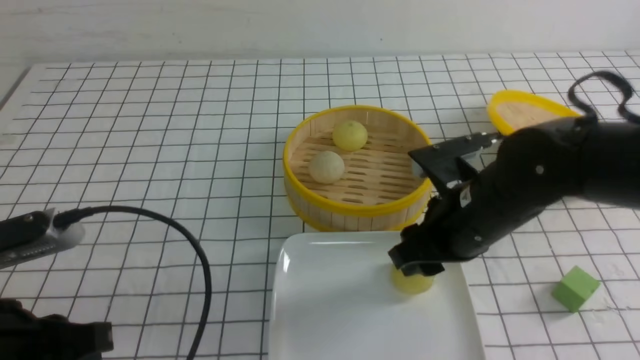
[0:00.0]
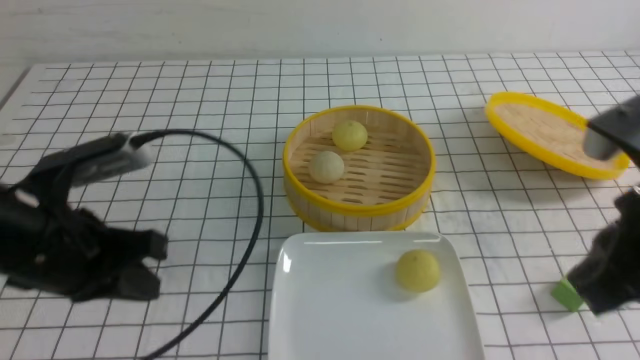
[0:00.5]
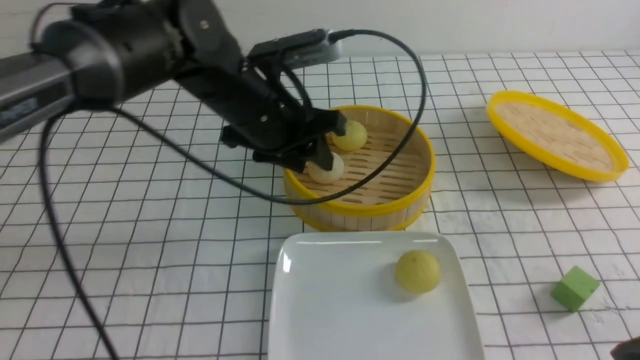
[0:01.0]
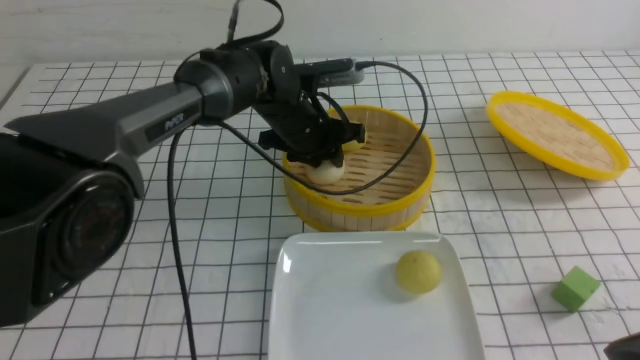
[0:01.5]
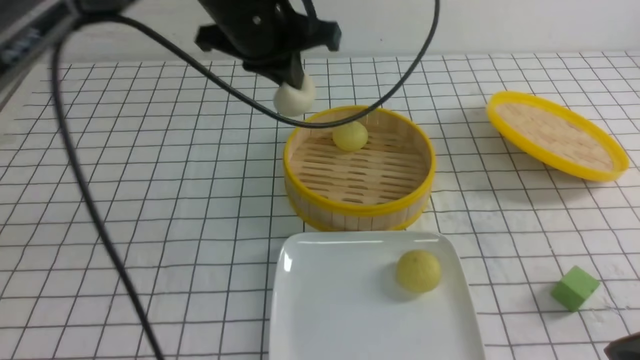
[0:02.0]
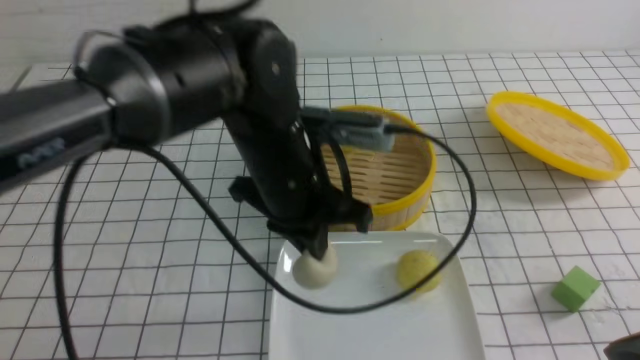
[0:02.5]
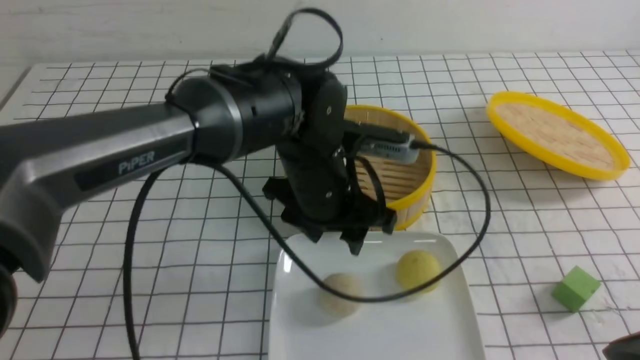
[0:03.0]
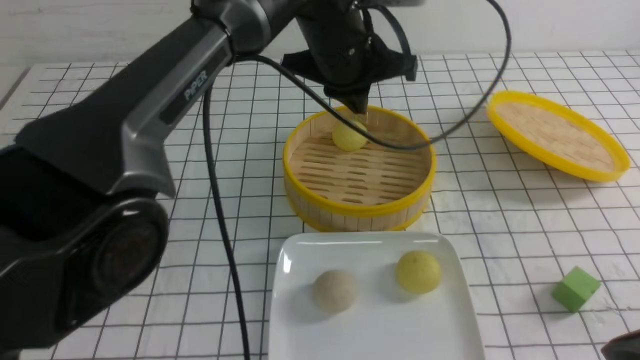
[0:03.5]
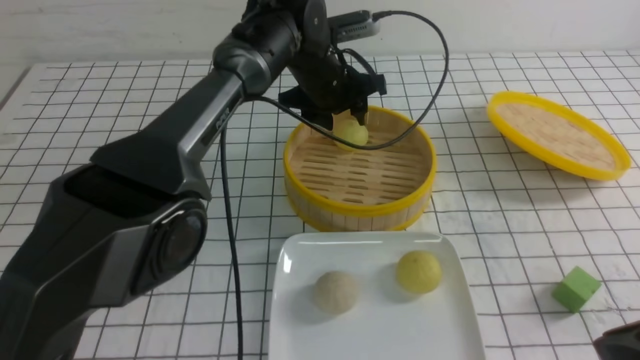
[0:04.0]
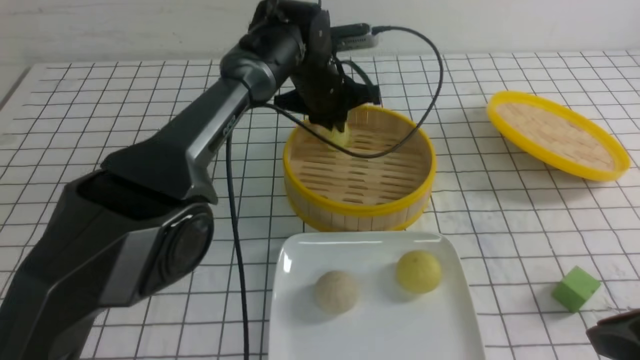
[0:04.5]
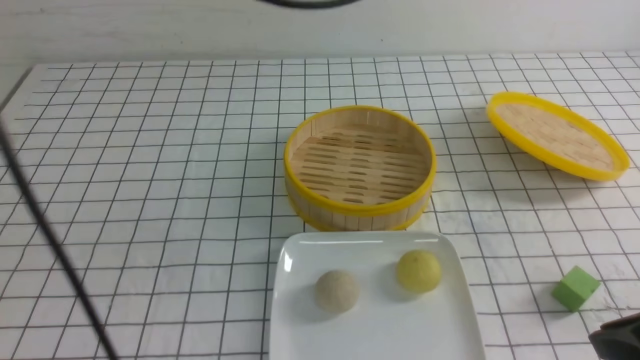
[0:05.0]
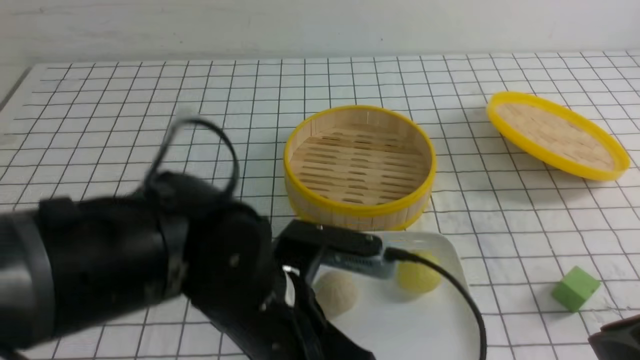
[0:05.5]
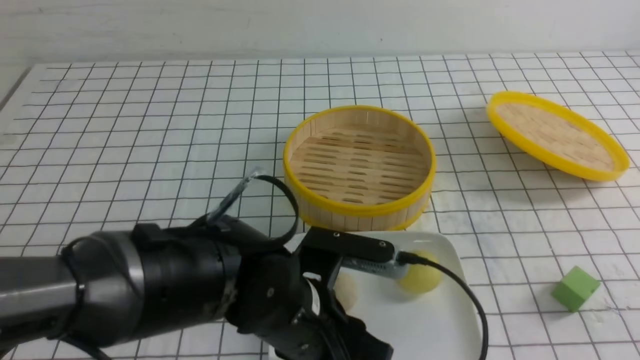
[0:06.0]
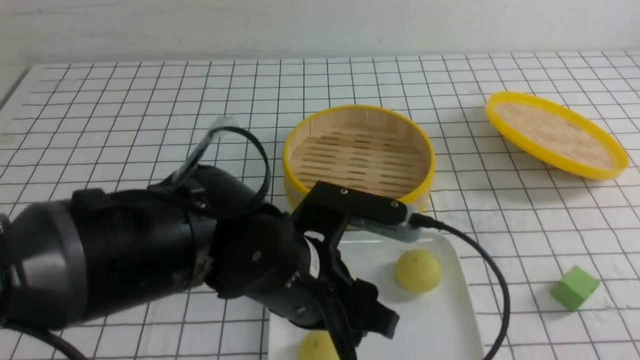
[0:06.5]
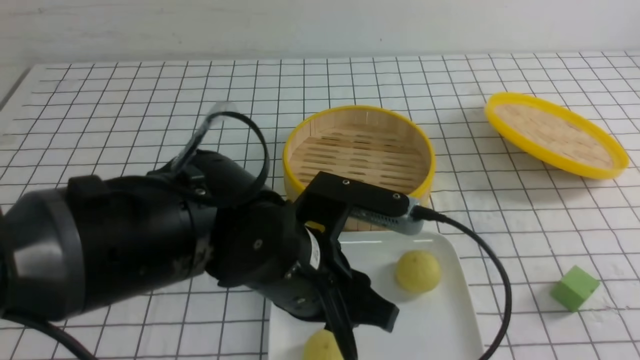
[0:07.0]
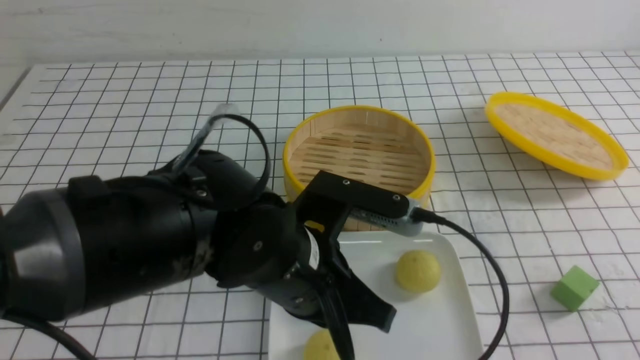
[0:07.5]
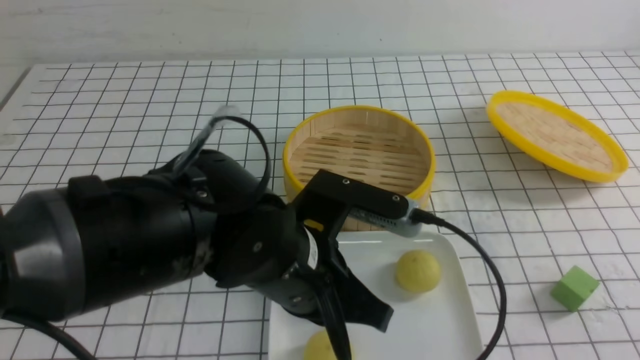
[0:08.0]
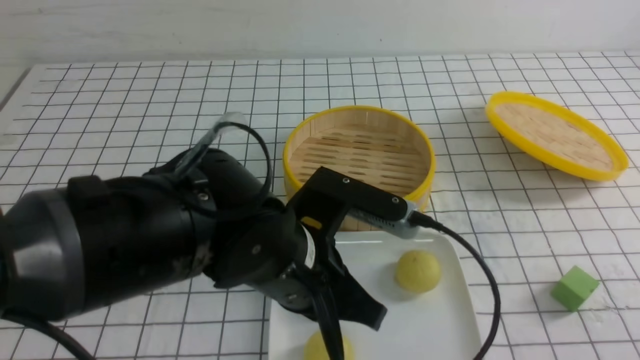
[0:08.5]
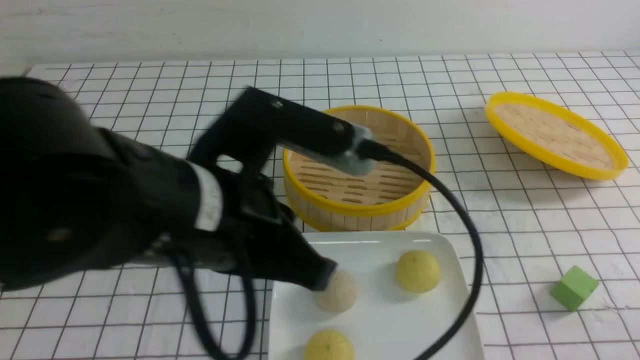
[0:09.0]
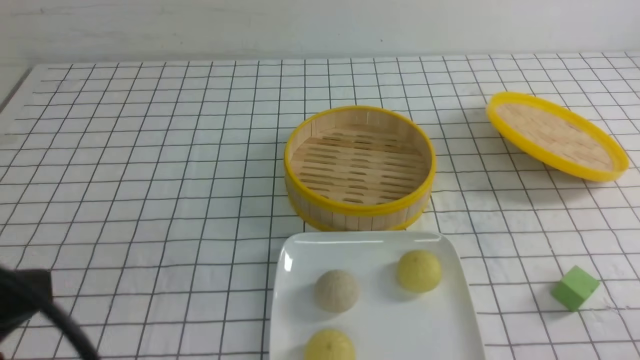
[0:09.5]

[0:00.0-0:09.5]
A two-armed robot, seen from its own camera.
Step, 0:00.5 to 0:01.5: use the left arm to grab the steamed stuffed bun that is closest to it.
Step, 0:02.0 to 0:03.0: use the left arm to put the steamed stuffed bun into the plate.
Step, 0:03.5 to 0:04.0: use the left arm to grab the steamed stuffed bun that is closest to it.
Step, 0:04.5 to 0:06.0: use the left arm to put the steamed stuffed bun into the plate.
0:00.0 to 0:02.0: The right gripper goes roughly 20 cm backward and to the right, and closes up. Meanwhile the left gripper heads forward, to the right and upward, covering some 30 cm, and opens, then closes once more.
0:02.0 to 0:04.0: The left gripper moves downward, forward and to the right, some 20 cm, and opens up.
0:04.0 to 0:05.5: The left gripper moves backward, some 30 cm, and closes.
0:05.5 to 0:07.5: The left gripper opens, then closes once more, while the right gripper moves backward, about 10 cm, and closes up.
0:07.5 to 0:09.5: The right gripper shifts about 10 cm downward. Meanwhile the left gripper moves to the left, backward and upward, approximately 25 cm.

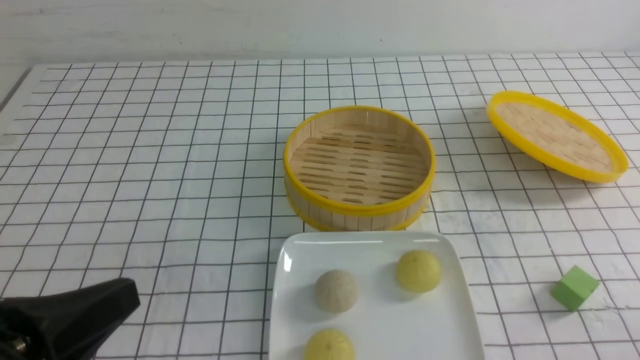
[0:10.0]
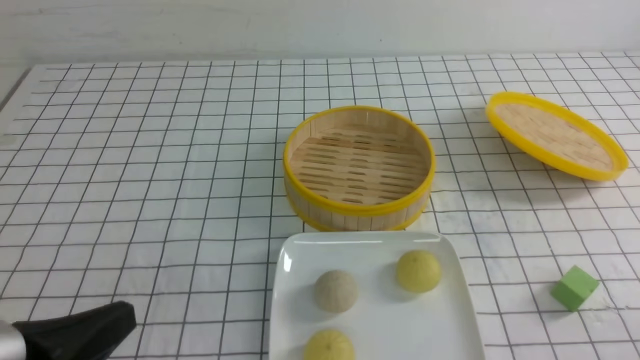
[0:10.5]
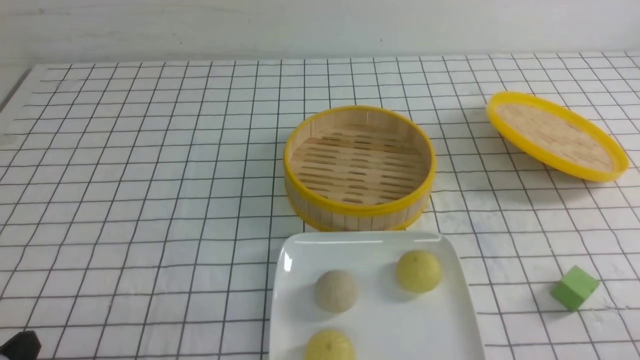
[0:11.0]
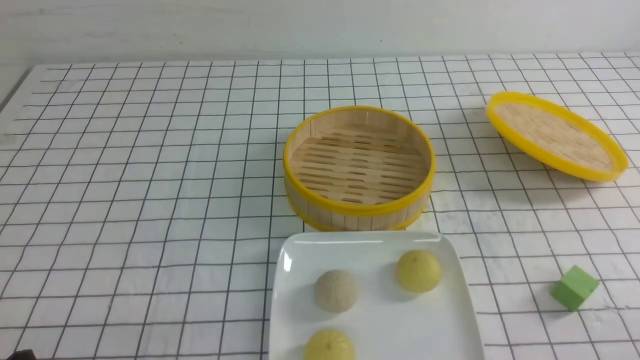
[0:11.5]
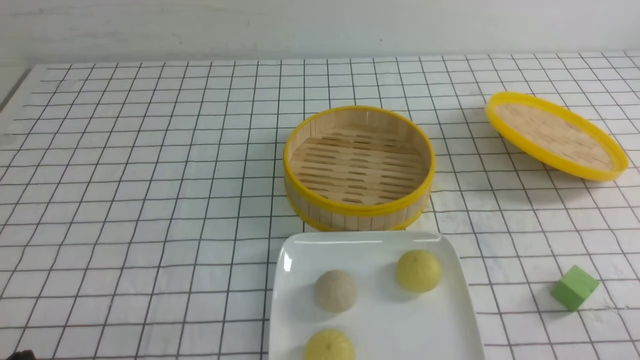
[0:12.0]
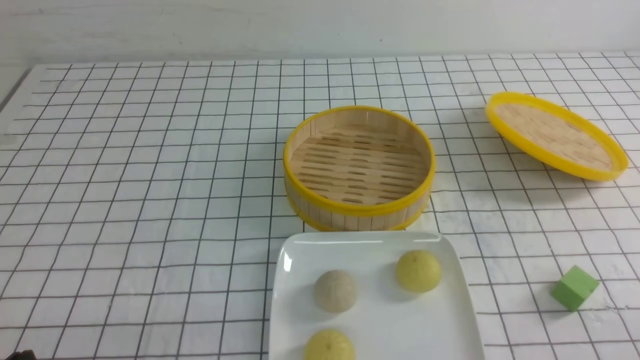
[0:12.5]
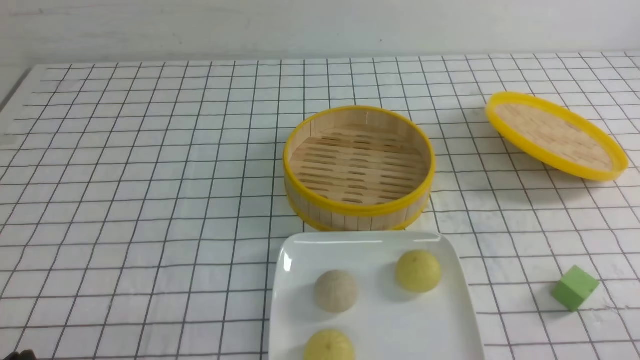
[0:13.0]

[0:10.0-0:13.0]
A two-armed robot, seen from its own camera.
0:10.0 to 0:11.5: The left gripper travels downward and to the left by approximately 15 cm.
0:11.5 to 0:13.0: Neither gripper changes place.

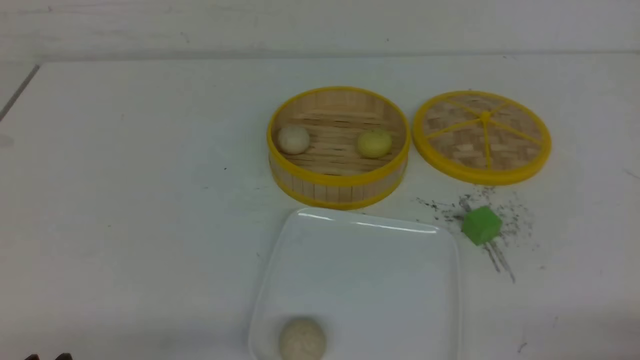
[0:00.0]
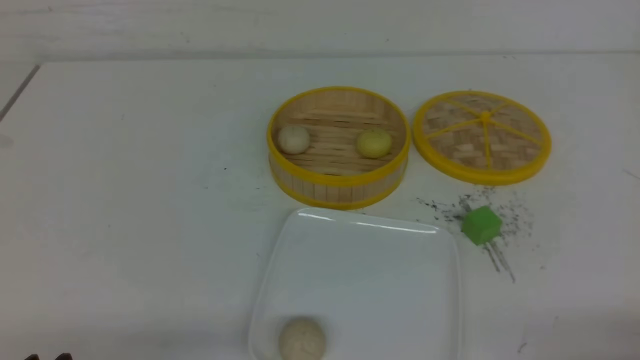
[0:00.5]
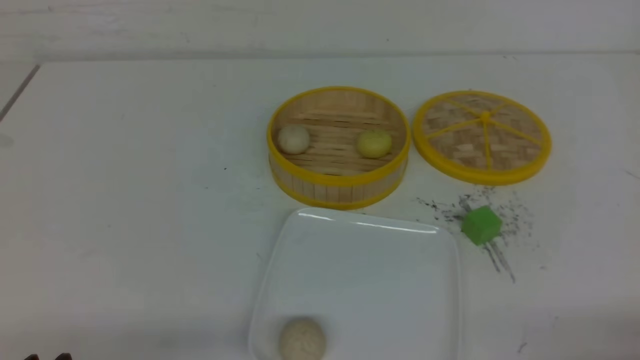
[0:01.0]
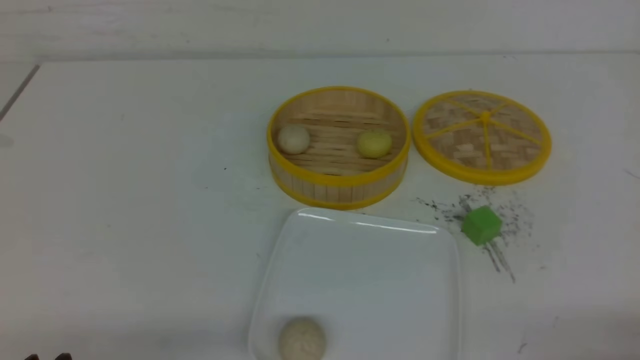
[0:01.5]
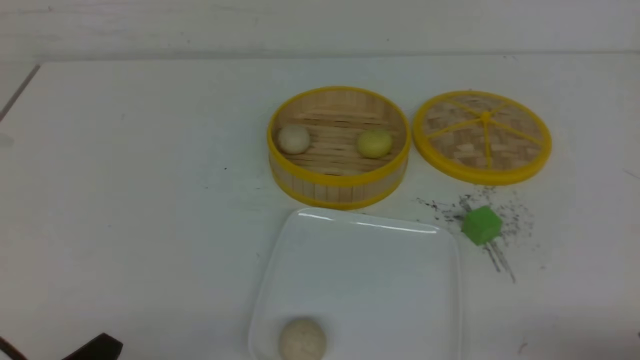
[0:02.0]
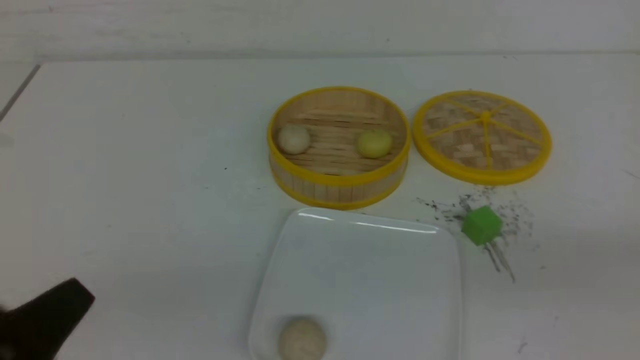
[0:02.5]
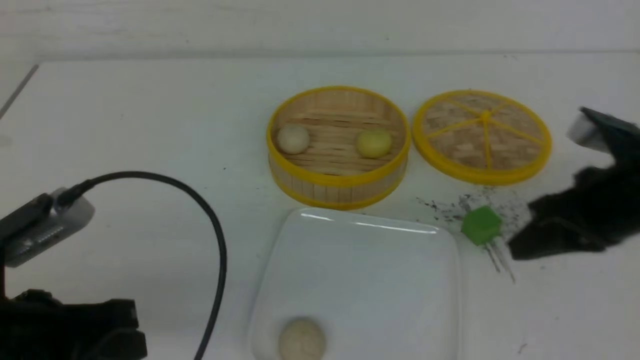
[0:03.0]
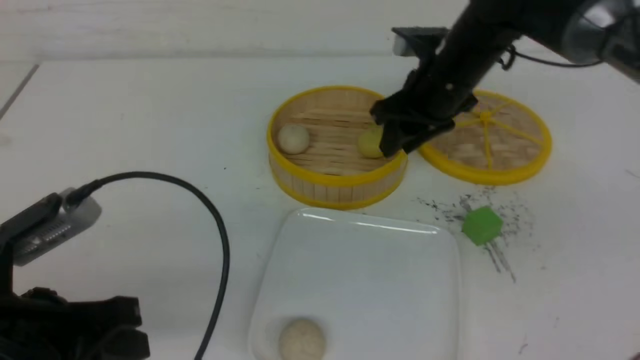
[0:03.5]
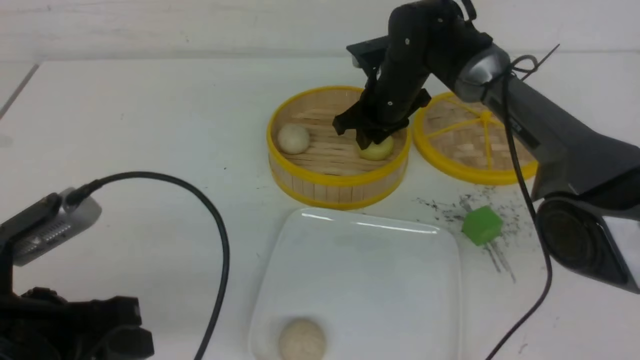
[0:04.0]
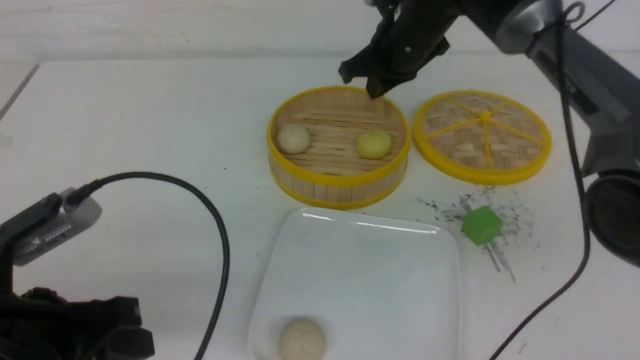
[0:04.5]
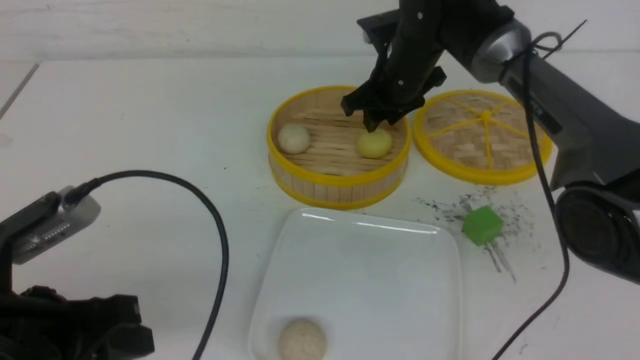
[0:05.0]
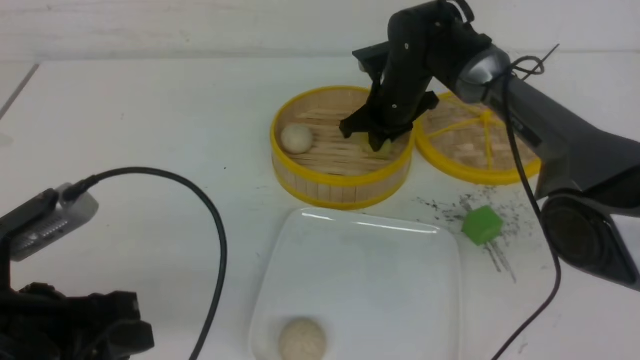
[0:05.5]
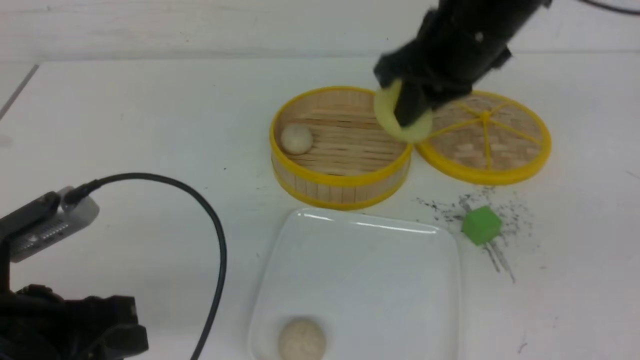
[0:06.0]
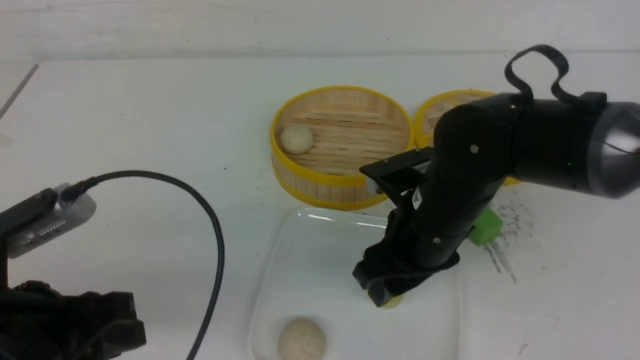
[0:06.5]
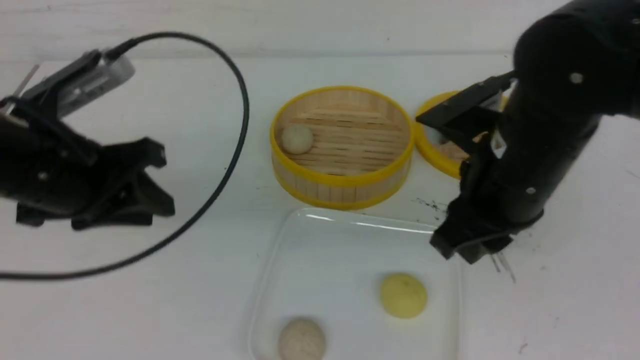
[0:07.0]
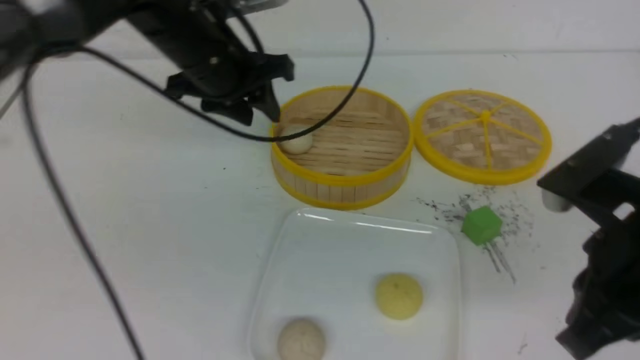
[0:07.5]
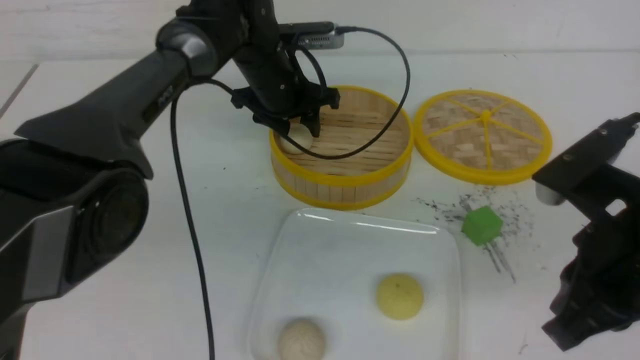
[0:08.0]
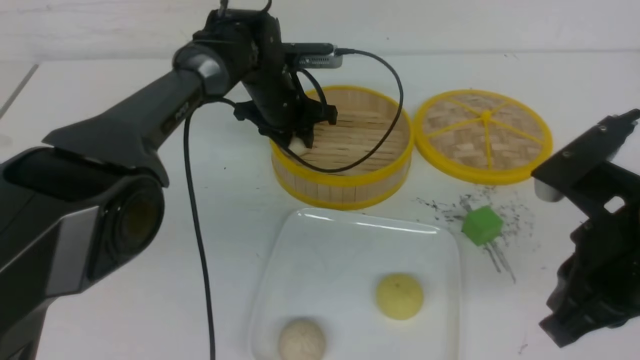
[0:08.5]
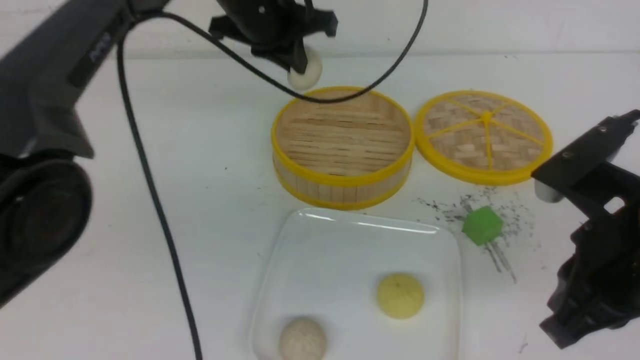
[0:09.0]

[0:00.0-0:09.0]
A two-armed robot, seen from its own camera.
Step, 0:00.0 to 0:05.5: use the right arm to grab the steamed stuffed bun that is closest to it.
Step, 0:06.0 to 0:06.5: use the right arm to put the steamed stuffed bun into the plate.
Step, 0:07.0 to 0:08.5: use the left arm to grab the steamed stuffed bun that is closest to it.
0:02.0 to 0:04.5: The right gripper goes some 50 cm forward and to the left, and closes up; the left gripper heads forward and upward, covering roughly 10 cm, and closes and opens again.
0:04.5 to 0:07.0: The right gripper shifts approximately 25 cm backward, and opens its fingers; the left gripper shifts roughly 15 cm forward and upward.
0:07.0 to 0:09.0: The right gripper shifts roughly 10 cm backward and to the right, and closes, while the left gripper is displaced forward and to the right by roughly 20 cm, and closes up.
